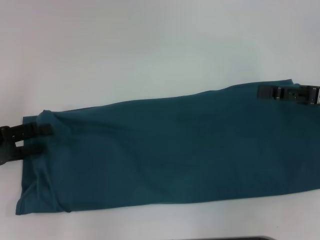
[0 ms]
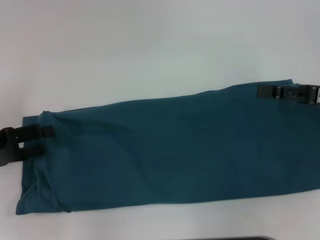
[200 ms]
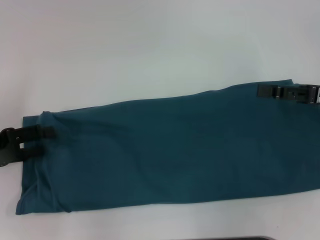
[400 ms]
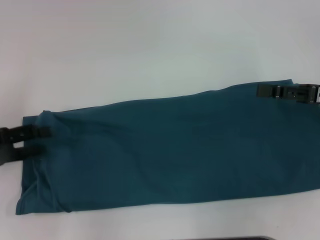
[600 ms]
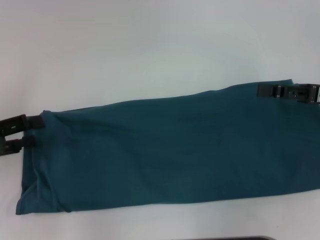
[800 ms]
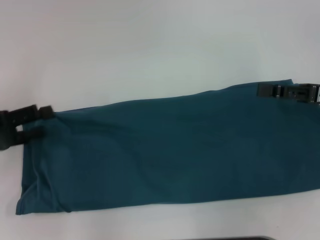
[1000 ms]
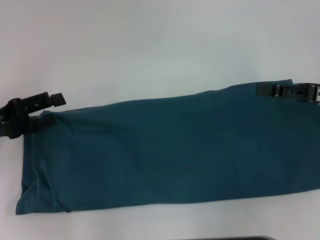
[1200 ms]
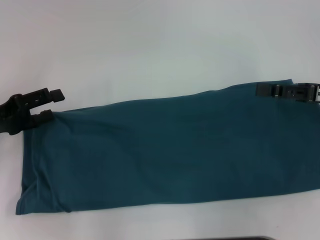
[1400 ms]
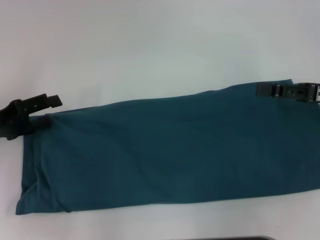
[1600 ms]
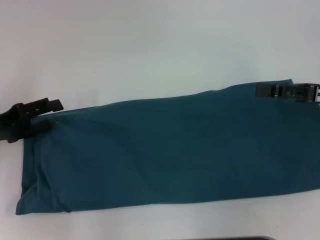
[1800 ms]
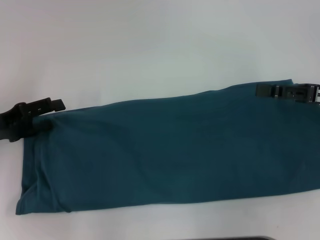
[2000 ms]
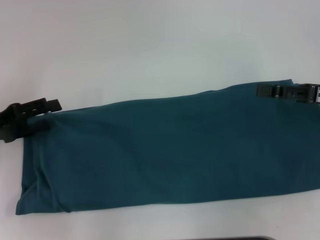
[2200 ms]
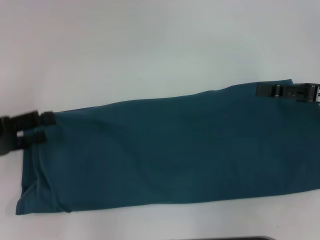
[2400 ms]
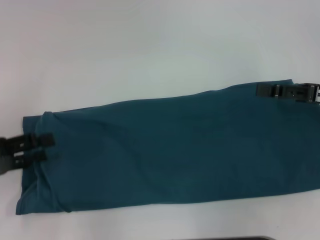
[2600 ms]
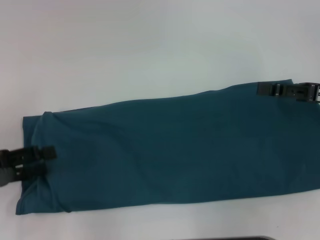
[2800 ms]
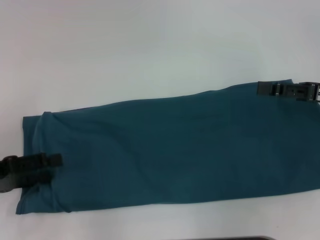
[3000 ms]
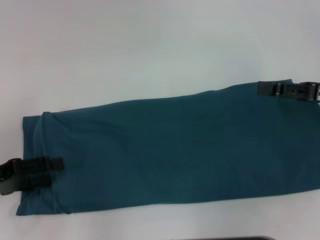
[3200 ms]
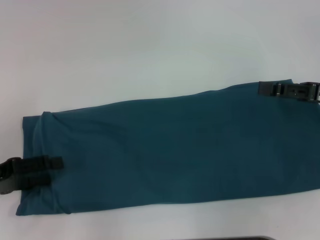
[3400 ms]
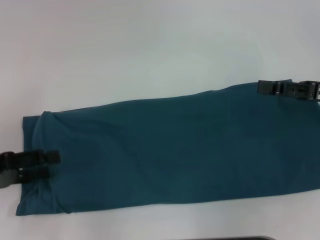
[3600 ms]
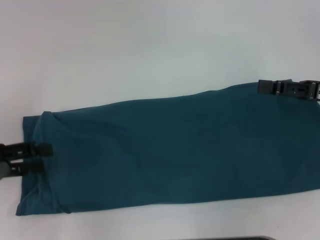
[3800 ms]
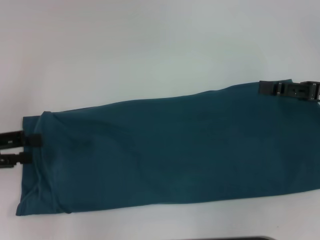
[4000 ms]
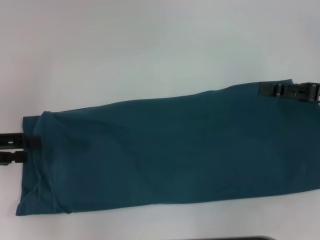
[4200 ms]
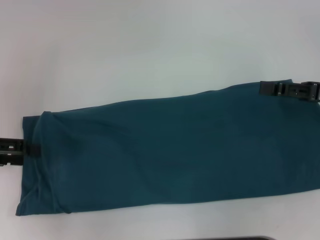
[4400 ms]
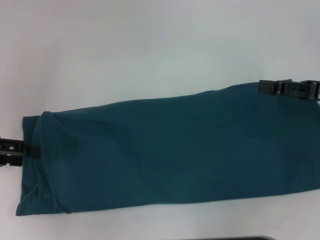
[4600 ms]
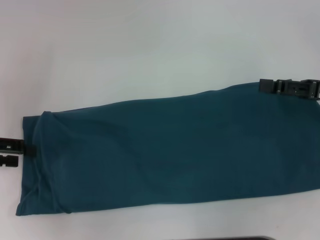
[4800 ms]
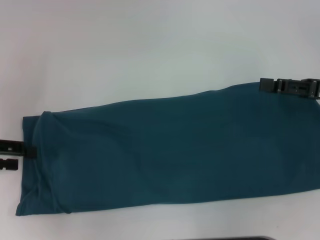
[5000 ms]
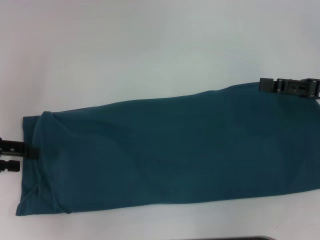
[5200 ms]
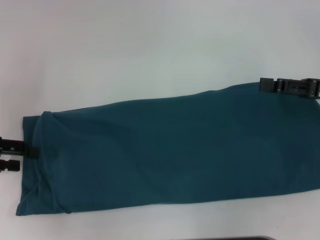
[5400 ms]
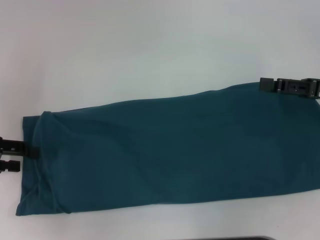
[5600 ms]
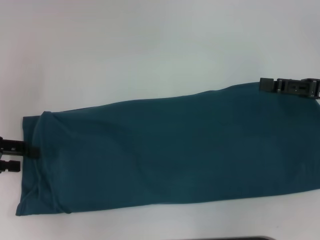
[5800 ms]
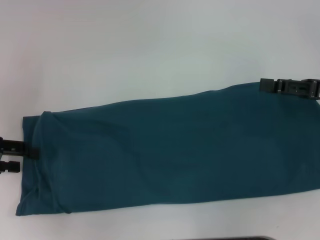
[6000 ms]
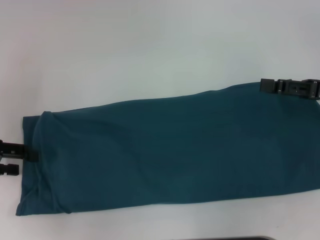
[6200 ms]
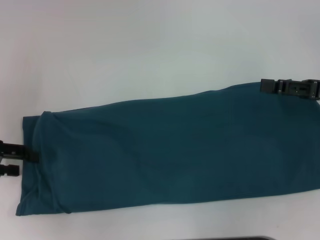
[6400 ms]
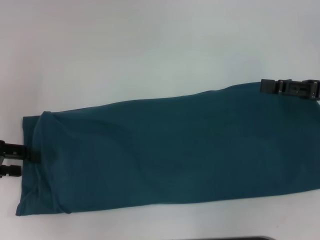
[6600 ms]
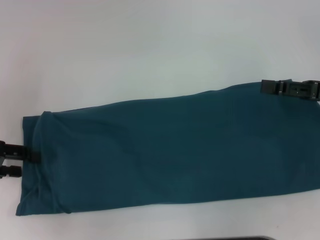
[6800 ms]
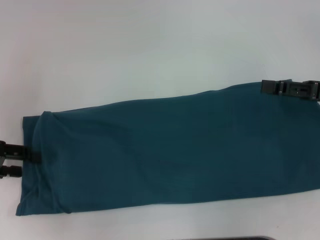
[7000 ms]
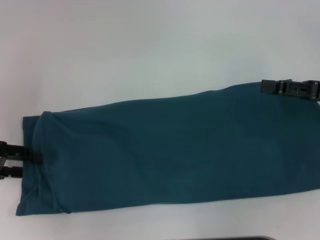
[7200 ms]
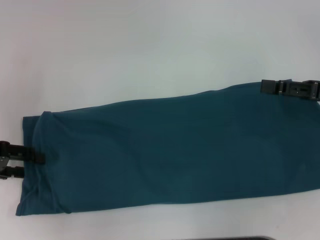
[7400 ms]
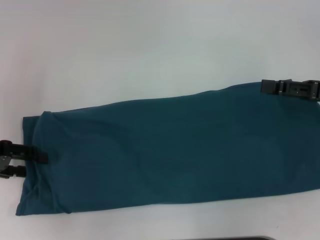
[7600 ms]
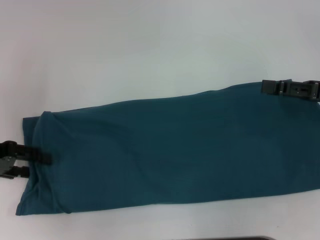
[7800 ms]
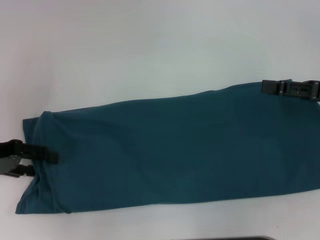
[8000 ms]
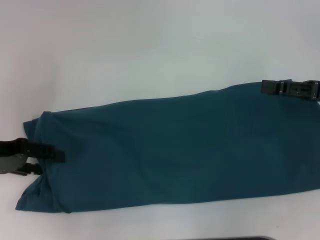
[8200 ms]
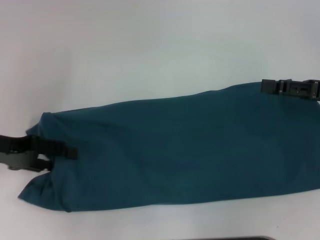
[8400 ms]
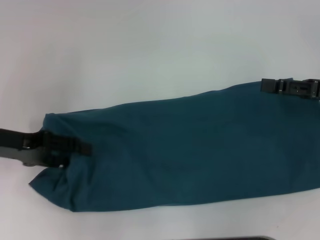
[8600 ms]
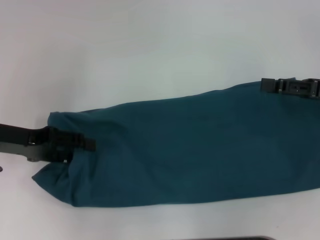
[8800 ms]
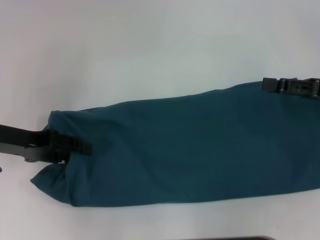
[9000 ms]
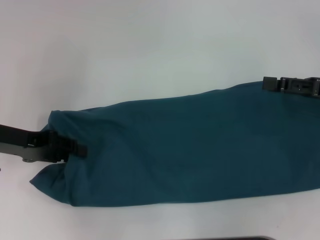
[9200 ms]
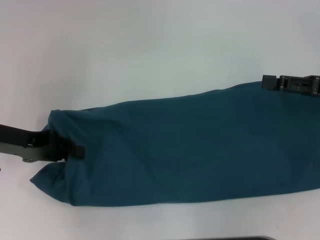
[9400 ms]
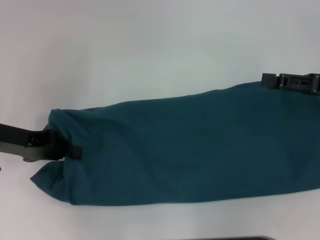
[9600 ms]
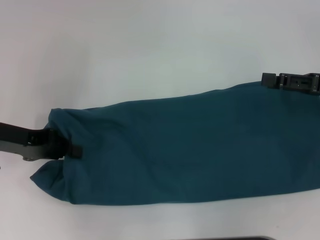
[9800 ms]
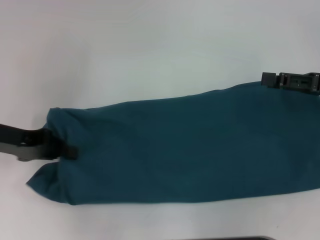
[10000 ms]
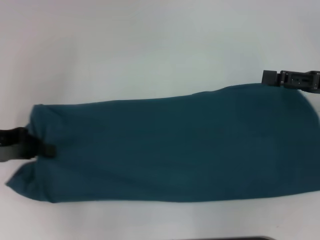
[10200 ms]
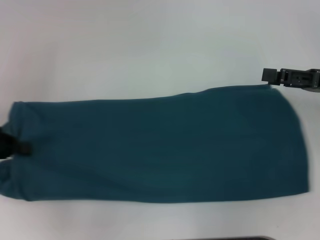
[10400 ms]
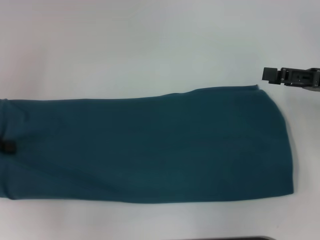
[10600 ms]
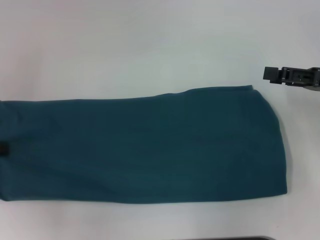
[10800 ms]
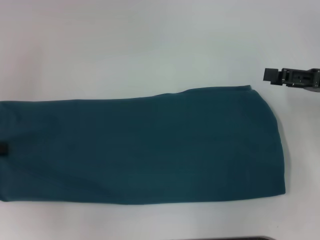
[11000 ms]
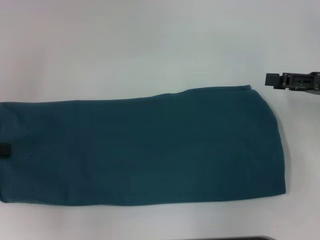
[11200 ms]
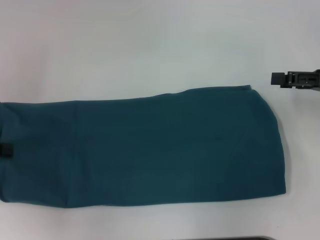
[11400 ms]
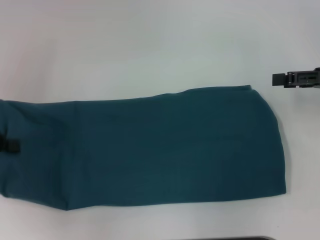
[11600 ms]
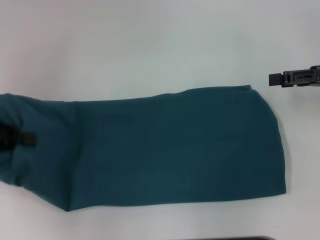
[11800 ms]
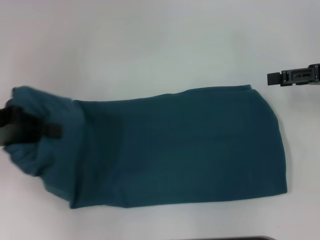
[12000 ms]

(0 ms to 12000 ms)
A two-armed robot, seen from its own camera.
0 ms - 1600 ms: The grippers make only small movements.
1600 ms - 3000 ms: The left gripper goes some 5 cm backward.
3000 ms - 4400 ms: The left gripper goes roughly 10 cm forward and upward.
4400 ms - 6000 ms: The grippers stay close to where they were, moving slightly.
6000 ms - 7600 ms: Both grippers stay put.
7600 ms - 9000 ms: The left gripper goes about 5 cm to the right.
9000 ms - 10400 ms: The left gripper moves to the left, some 5 cm, and closes.
10400 ms - 12000 ms: The left gripper ends up roughly 5 cm from where it was.

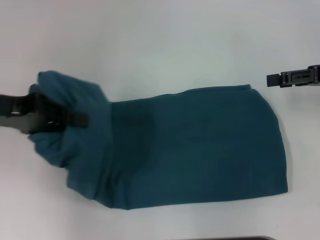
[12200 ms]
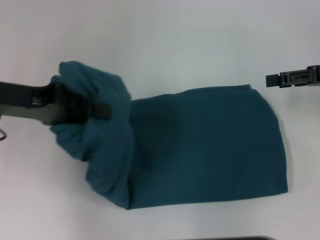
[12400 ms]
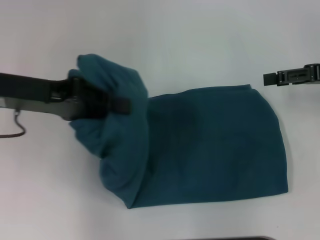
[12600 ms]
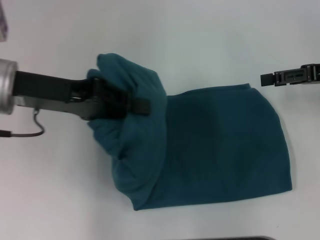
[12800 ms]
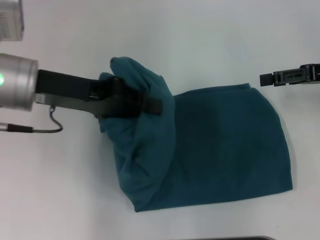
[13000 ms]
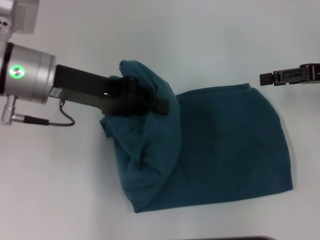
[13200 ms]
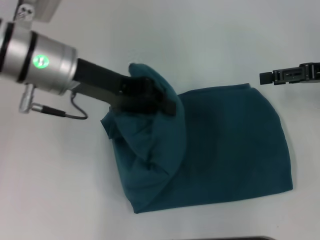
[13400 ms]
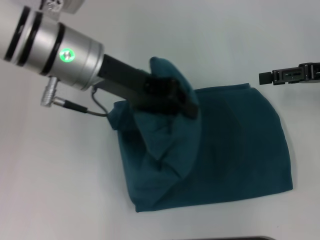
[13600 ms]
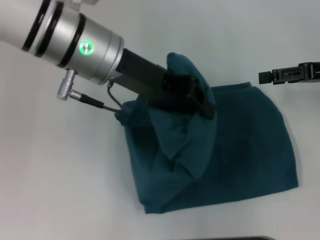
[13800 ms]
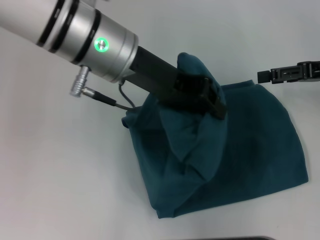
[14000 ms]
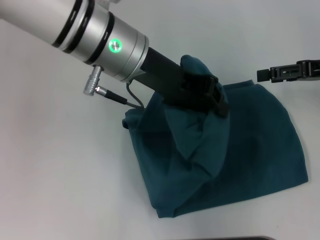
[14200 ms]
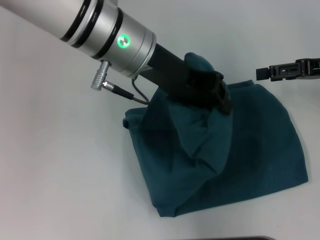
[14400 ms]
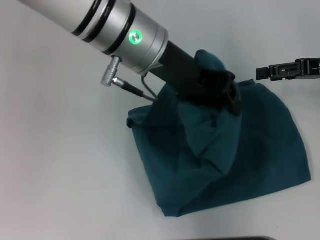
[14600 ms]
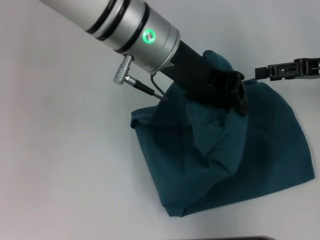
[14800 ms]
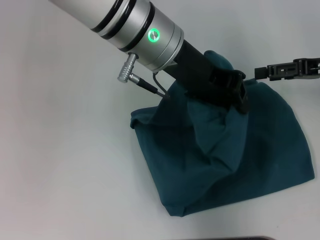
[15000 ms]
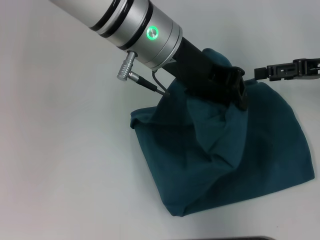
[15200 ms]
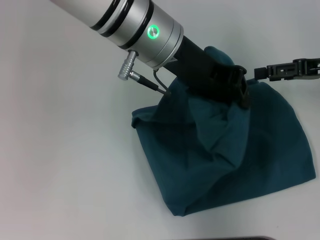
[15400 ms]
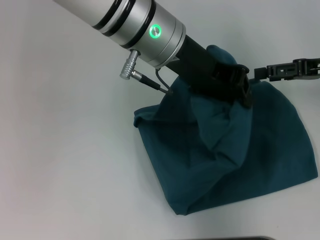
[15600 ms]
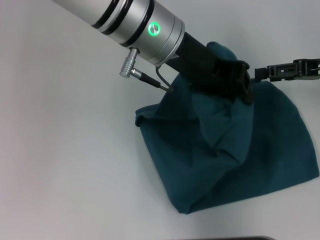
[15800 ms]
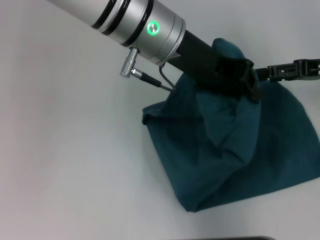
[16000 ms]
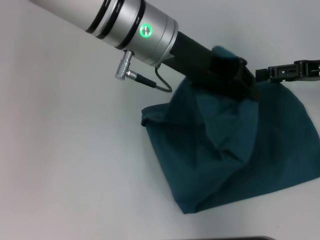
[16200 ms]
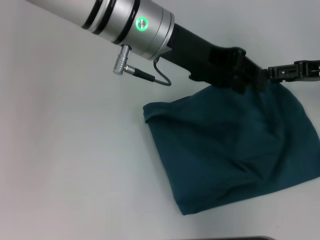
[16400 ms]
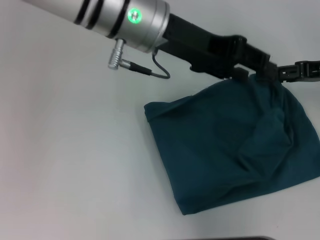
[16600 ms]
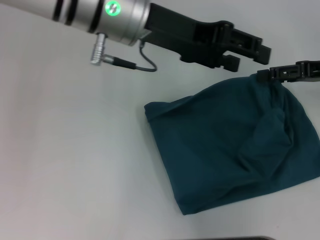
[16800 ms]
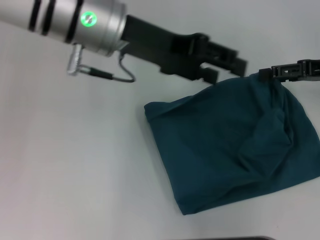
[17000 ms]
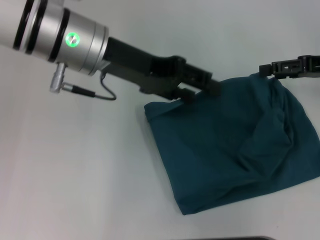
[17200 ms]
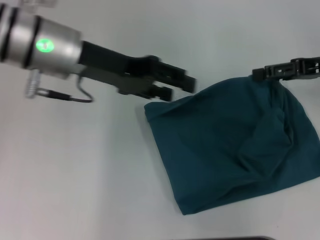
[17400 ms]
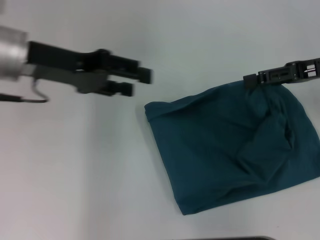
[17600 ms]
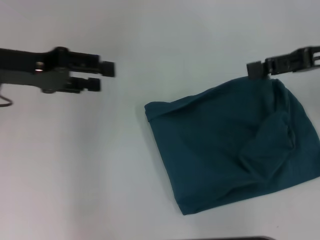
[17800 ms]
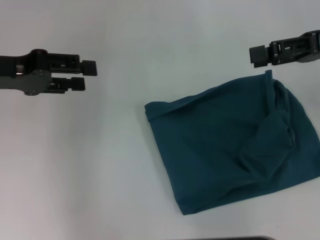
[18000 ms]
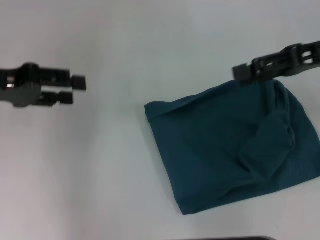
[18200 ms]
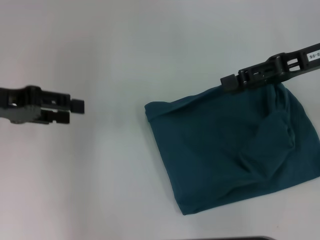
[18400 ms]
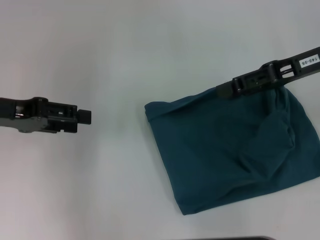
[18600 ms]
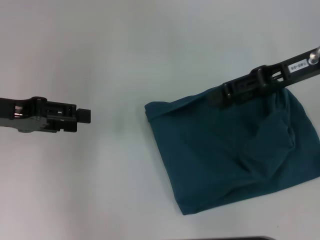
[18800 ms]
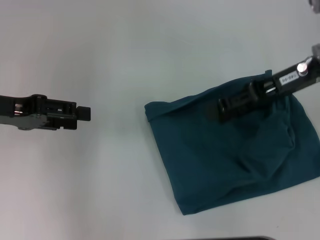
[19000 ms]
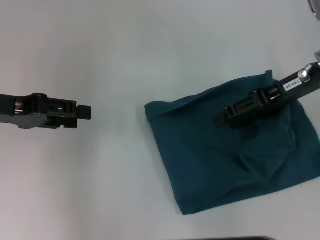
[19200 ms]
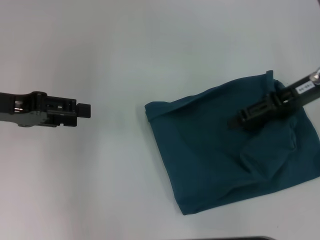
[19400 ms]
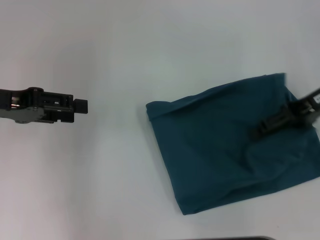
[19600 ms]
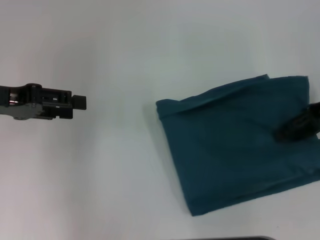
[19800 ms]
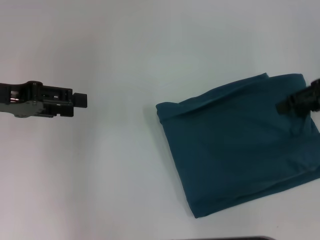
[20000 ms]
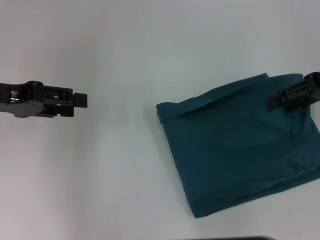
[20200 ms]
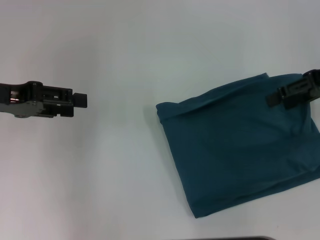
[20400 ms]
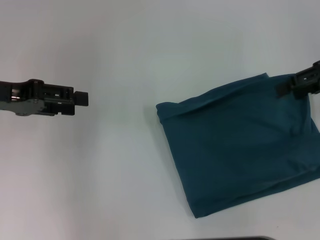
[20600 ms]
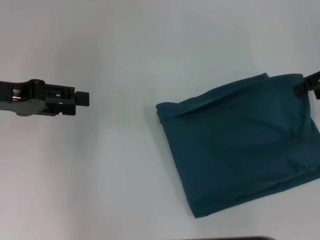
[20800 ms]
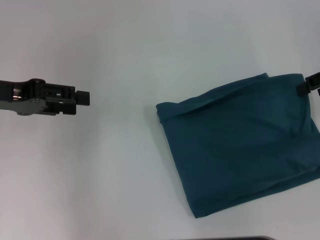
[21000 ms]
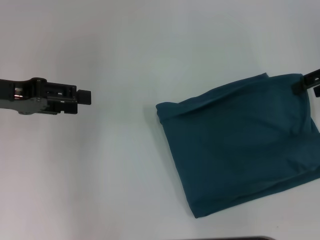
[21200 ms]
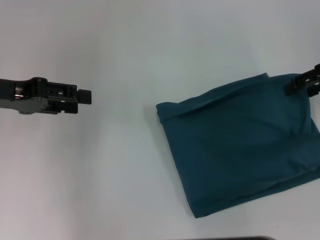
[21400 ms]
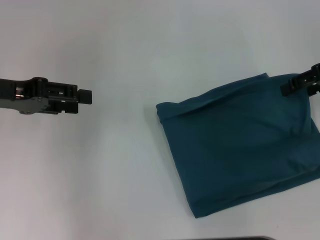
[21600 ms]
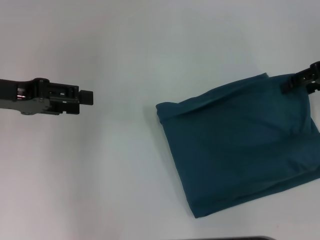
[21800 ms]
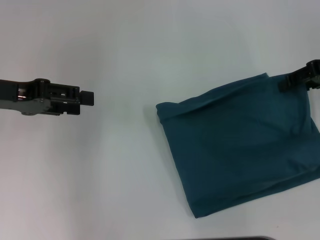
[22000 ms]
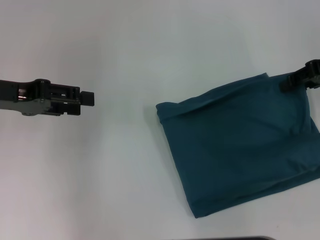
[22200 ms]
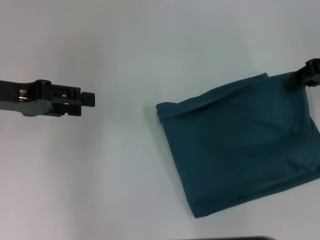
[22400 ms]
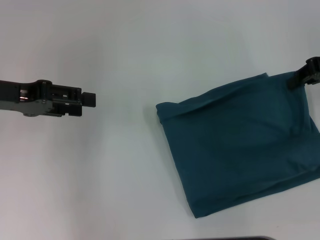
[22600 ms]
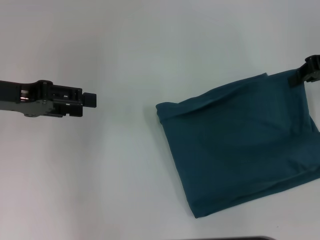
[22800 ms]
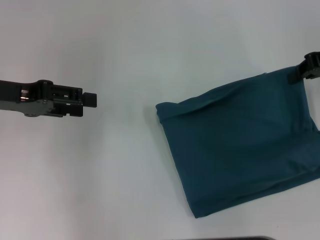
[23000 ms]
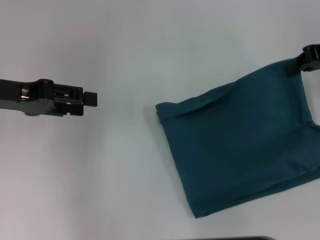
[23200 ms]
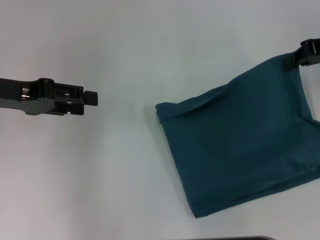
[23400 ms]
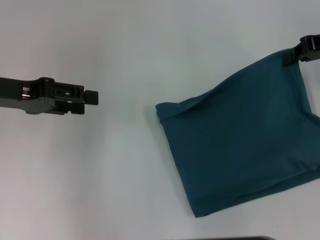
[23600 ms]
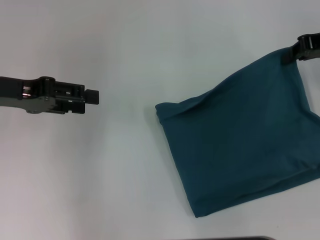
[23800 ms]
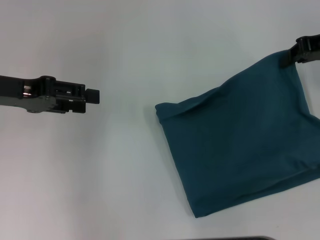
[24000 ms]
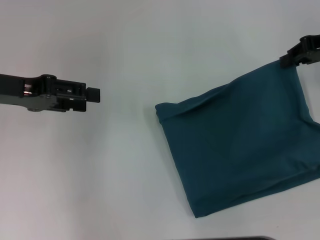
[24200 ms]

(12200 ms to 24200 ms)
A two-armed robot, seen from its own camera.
Step, 12200 ms - 16600 ms: Fold the clothes to the left.
12200 ms - 13800 ms: The left gripper goes about 20 cm to the right.
13800 ms - 15200 ms: The left gripper moves to the right, roughly 5 cm.
15200 ms - 16600 ms: The grippers stay close to where they were, moving slightly.
16600 ms - 18200 ms: The left gripper moves to the left, approximately 25 cm, and opens up, while the right gripper heads upward, covering approximately 5 cm.
18200 ms - 19800 ms: The right gripper moves approximately 5 cm.
19800 ms - 21200 ms: The grippers make only small movements.
21200 ms - 22600 ms: The right gripper closes up.
22600 ms - 24200 ms: There are only small adjustments of the grippers.
